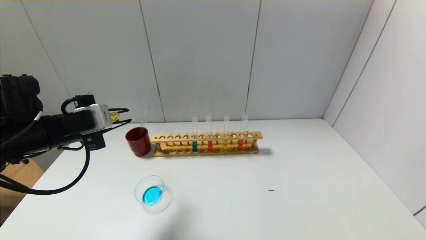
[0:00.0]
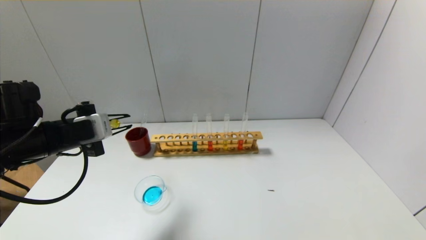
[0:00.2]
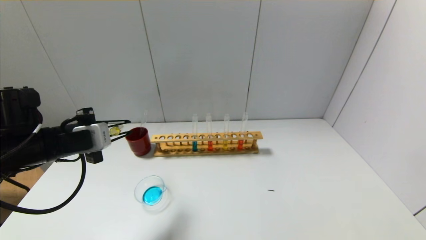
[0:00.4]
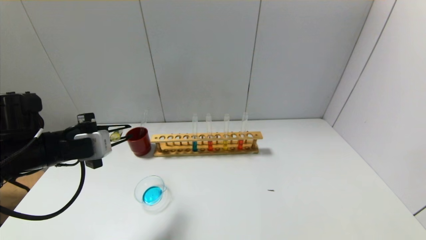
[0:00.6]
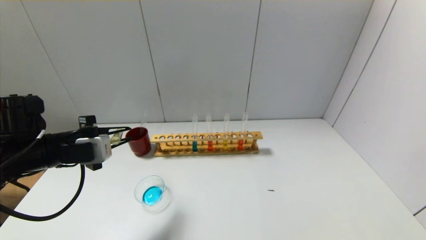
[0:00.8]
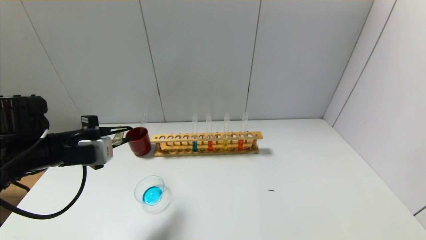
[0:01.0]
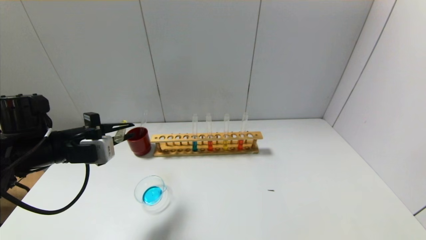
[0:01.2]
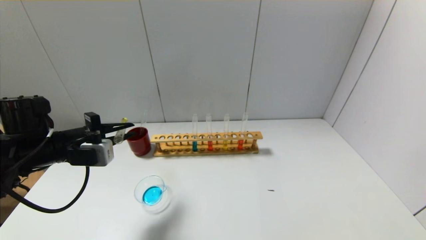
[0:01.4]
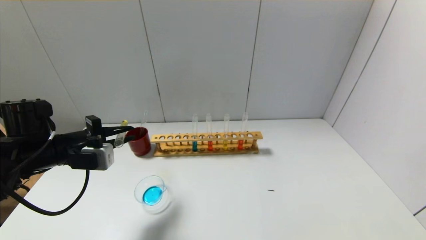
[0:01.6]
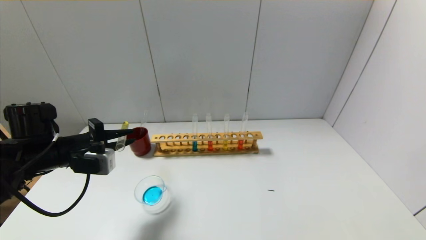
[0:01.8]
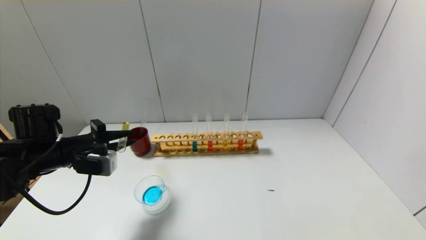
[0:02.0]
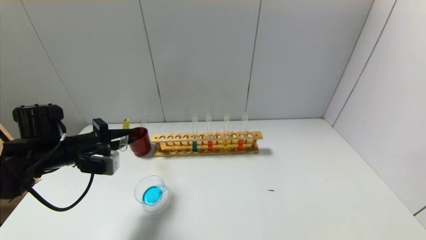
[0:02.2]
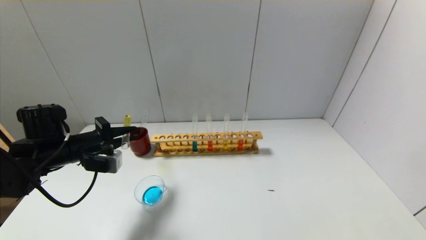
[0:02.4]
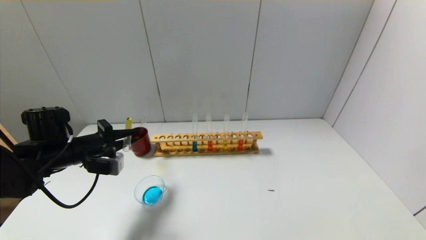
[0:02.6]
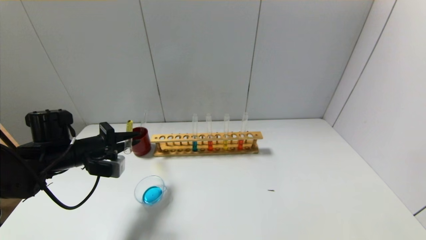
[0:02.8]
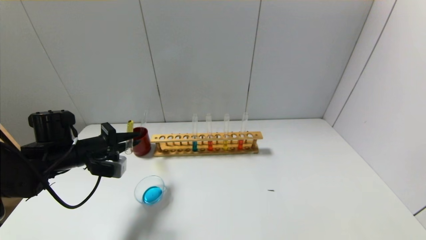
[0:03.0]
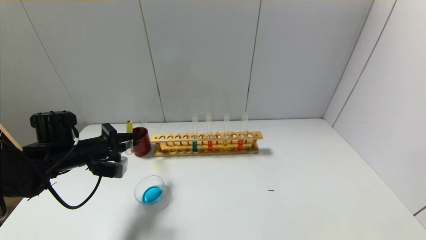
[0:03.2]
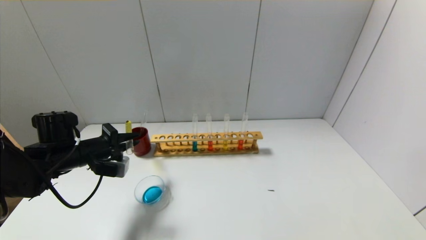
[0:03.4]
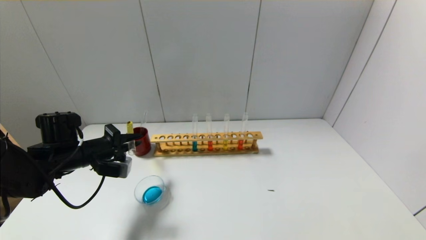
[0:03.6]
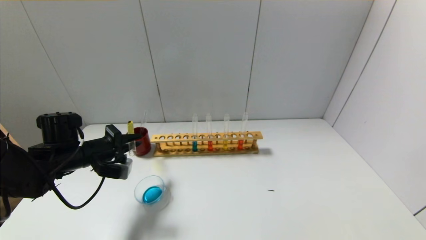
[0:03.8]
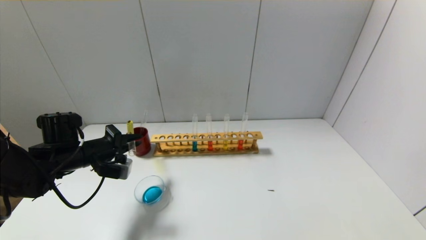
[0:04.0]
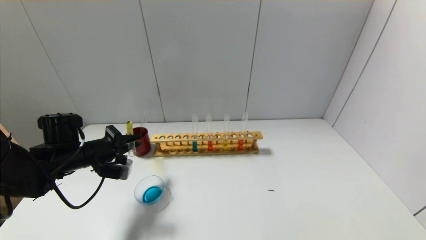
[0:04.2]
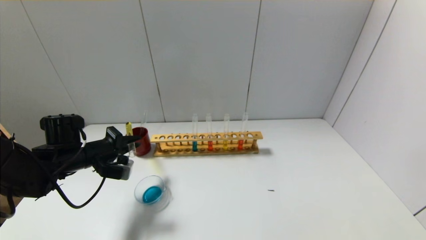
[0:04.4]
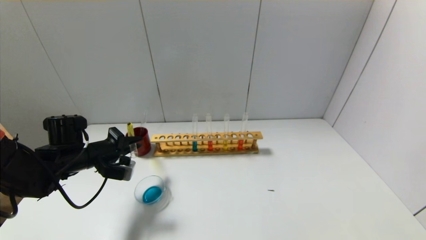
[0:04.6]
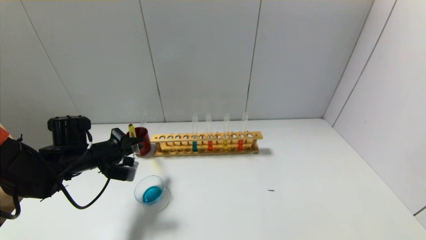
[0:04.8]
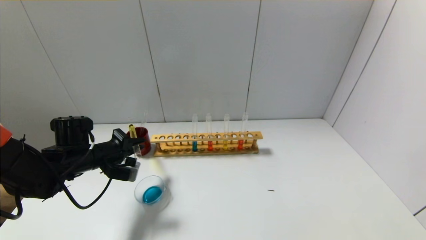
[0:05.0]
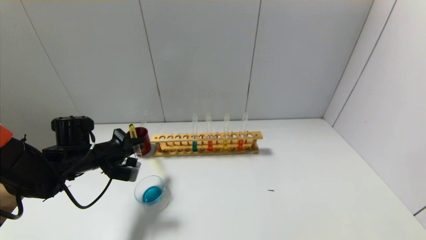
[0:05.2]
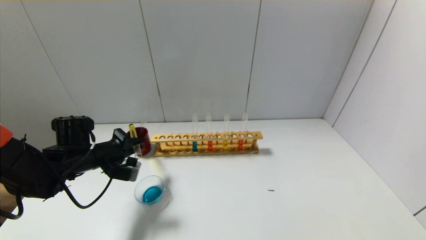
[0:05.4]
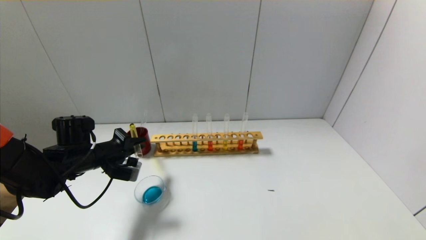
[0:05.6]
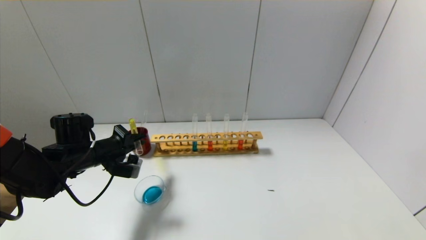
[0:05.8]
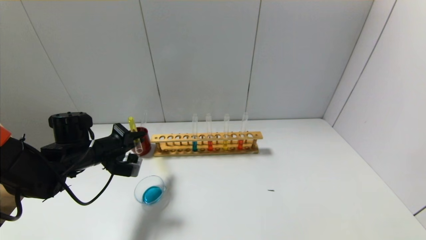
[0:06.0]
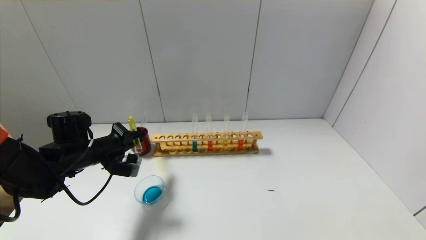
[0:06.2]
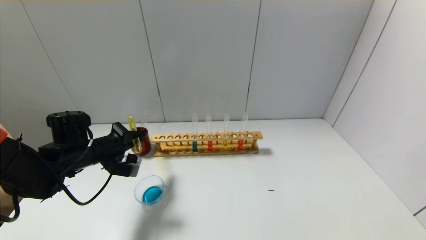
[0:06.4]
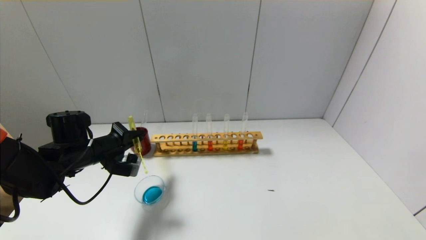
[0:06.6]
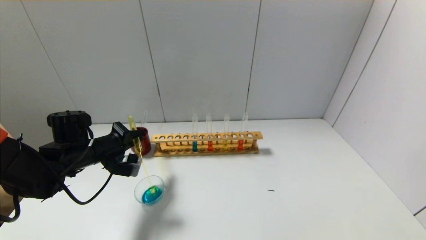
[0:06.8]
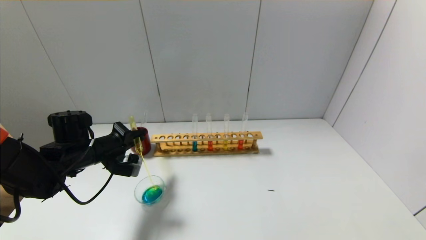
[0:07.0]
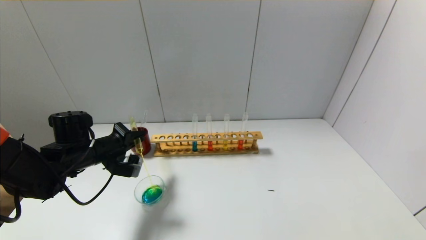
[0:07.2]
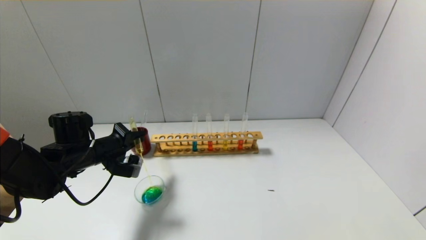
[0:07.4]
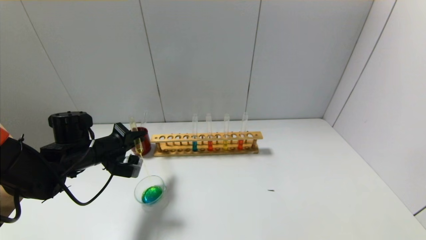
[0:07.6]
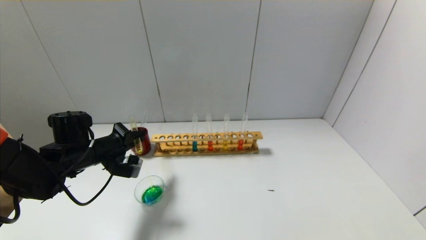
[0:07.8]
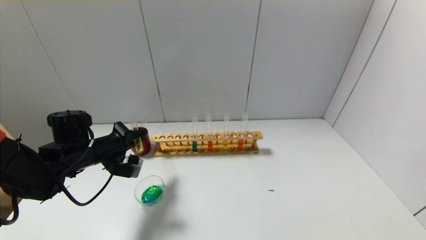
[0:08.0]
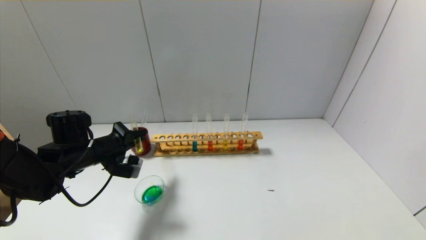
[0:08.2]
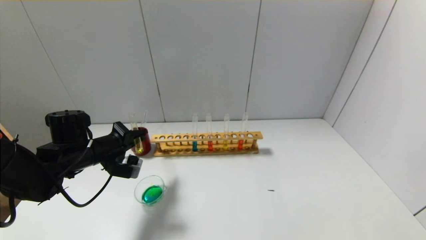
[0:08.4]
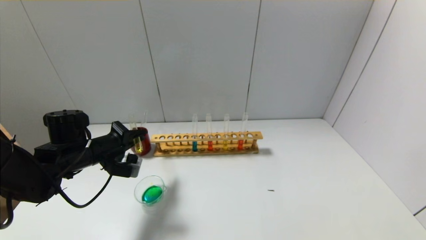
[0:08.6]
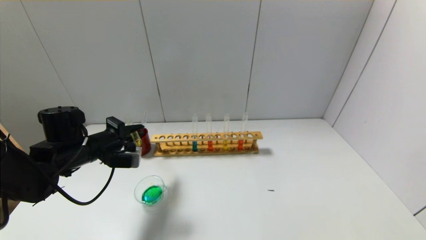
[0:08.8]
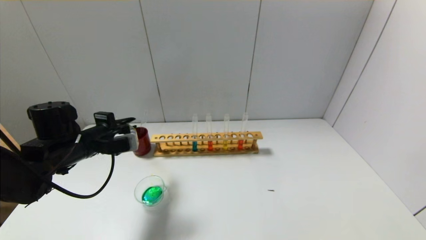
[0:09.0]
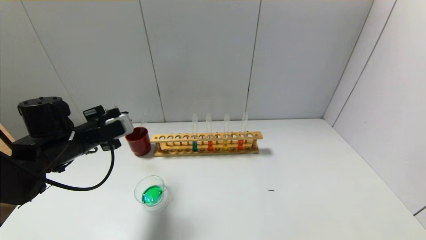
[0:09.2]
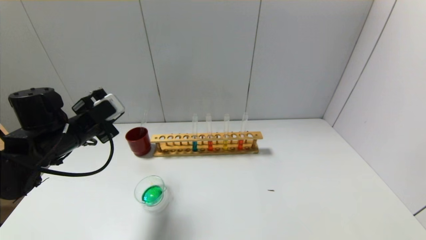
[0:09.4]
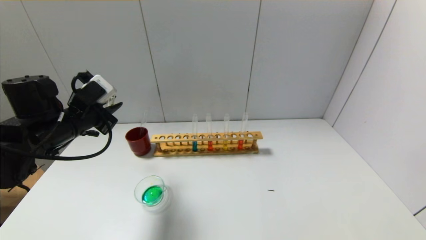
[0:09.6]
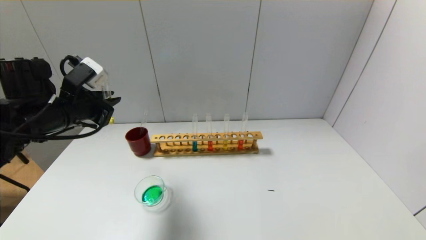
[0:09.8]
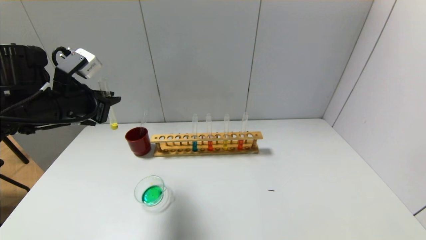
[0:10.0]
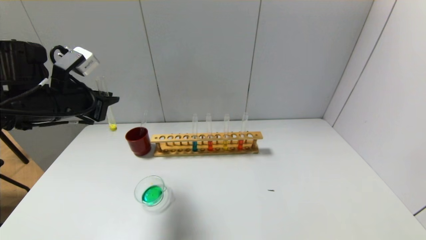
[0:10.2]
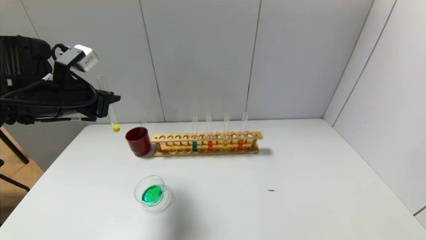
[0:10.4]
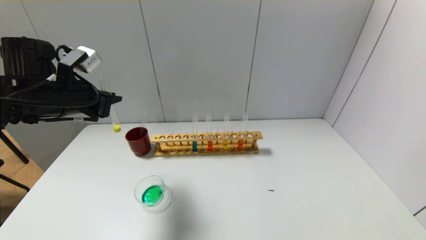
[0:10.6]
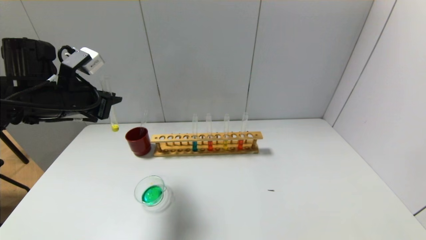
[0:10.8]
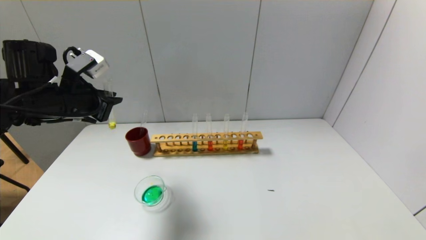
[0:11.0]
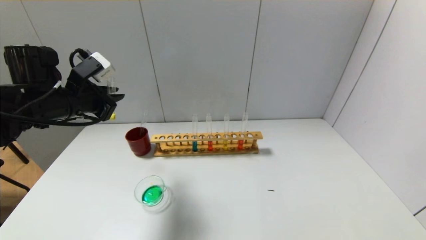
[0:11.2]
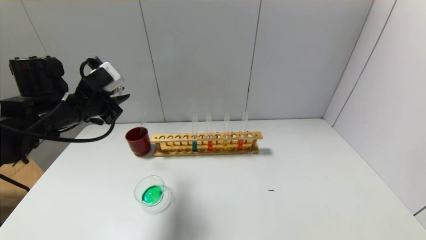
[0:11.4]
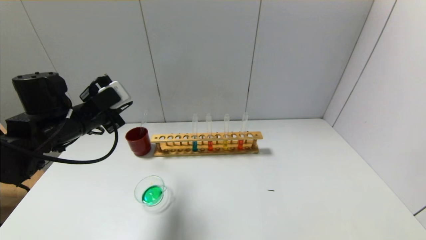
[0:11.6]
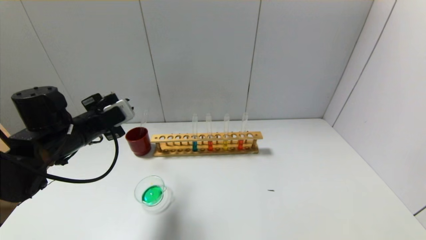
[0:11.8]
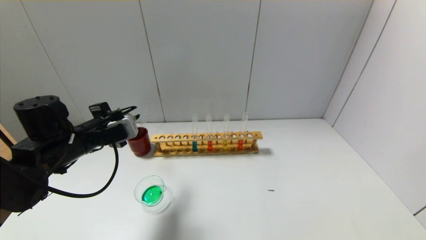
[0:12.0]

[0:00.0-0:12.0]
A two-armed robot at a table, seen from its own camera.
0:01.6 to 0:03.0: The left gripper changes place by roughly 5 cm.
0:03.0 to 0:06.0: The grippers make only small movements.
0:06.0 to 0:07.6: The two grippers keep their place.
0:09.0 to 0:10.4: The left gripper is displaced upward by roughly 10 cm.
0:10.4 to 0:12.0: The left gripper shifts some 10 cm downward.

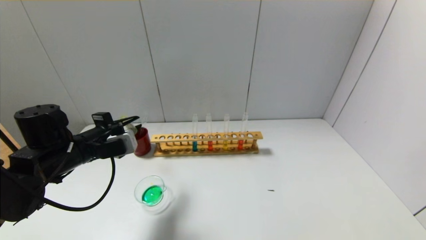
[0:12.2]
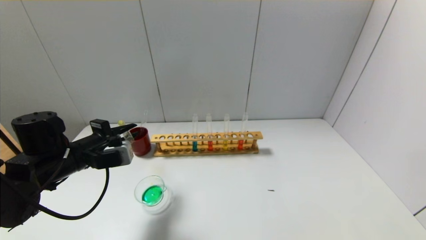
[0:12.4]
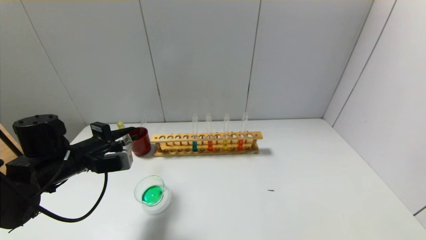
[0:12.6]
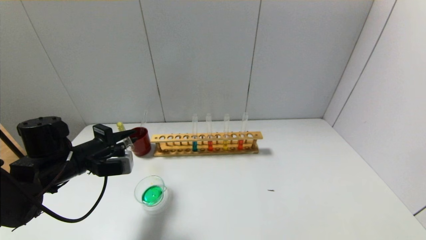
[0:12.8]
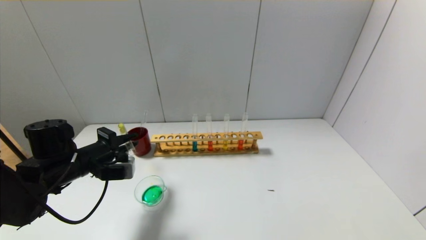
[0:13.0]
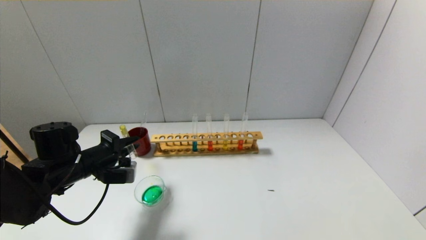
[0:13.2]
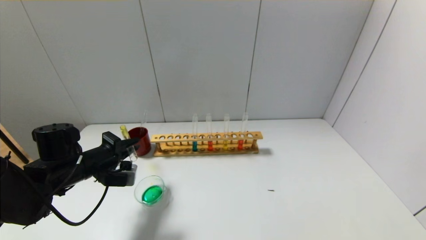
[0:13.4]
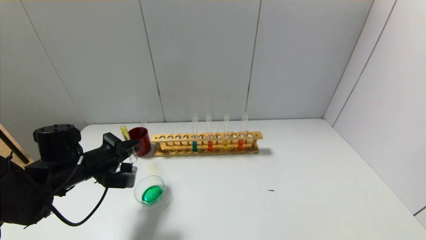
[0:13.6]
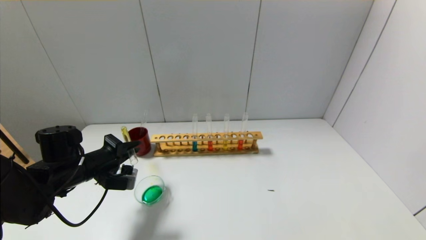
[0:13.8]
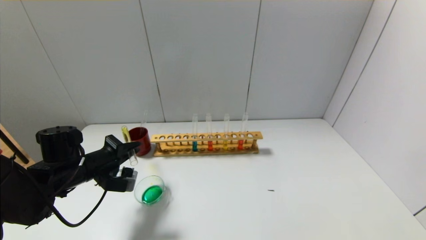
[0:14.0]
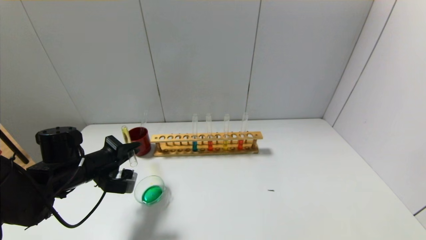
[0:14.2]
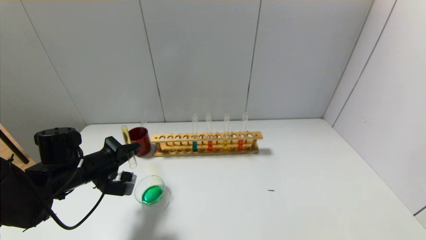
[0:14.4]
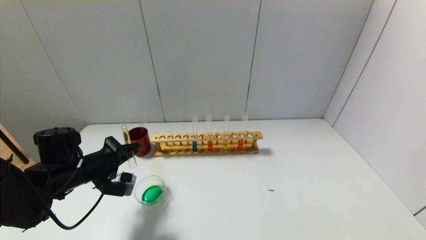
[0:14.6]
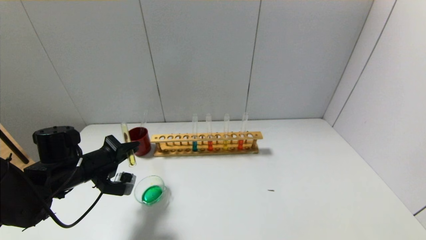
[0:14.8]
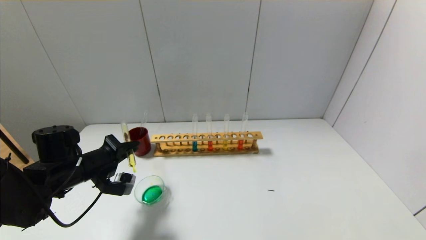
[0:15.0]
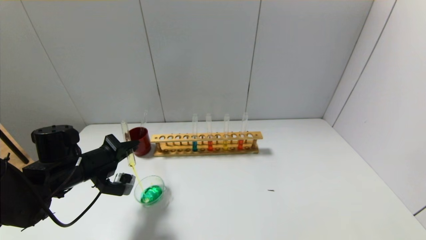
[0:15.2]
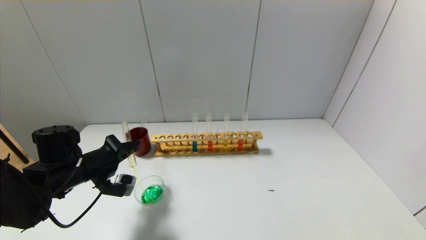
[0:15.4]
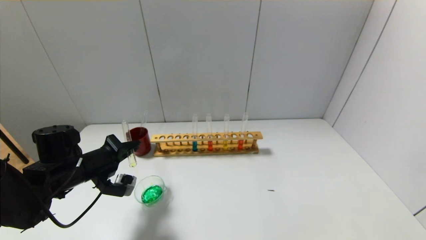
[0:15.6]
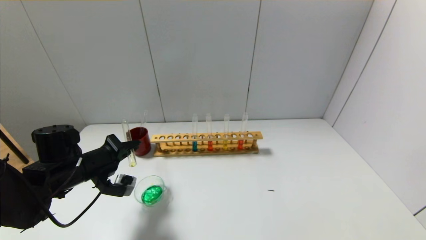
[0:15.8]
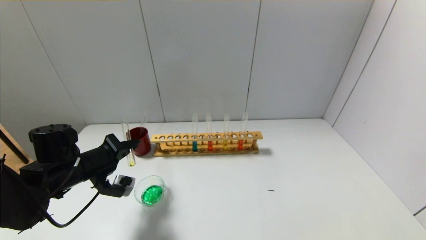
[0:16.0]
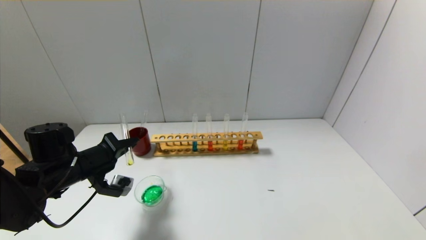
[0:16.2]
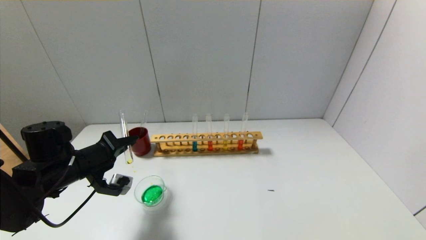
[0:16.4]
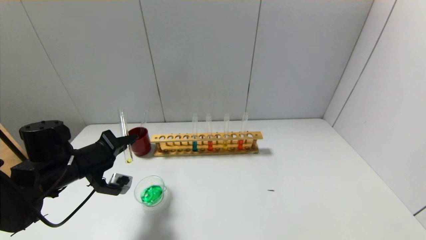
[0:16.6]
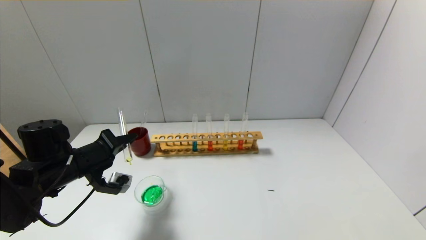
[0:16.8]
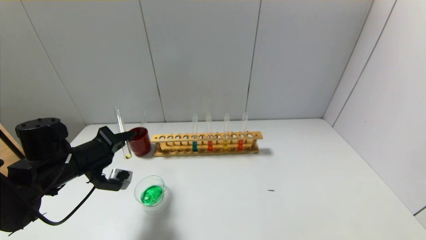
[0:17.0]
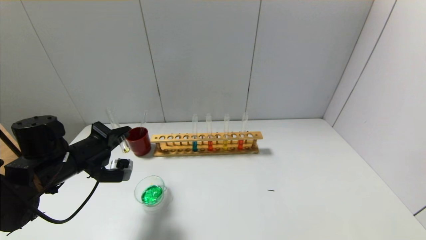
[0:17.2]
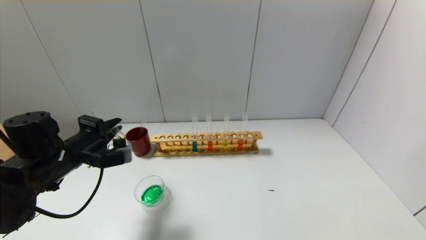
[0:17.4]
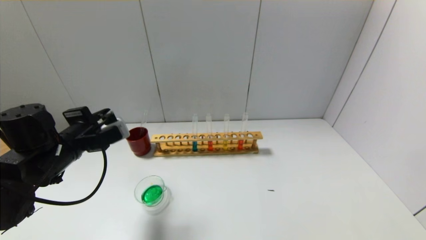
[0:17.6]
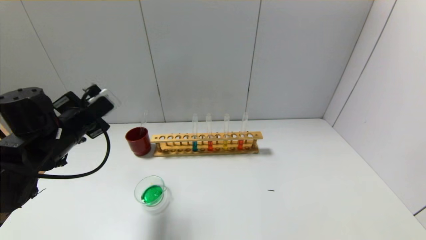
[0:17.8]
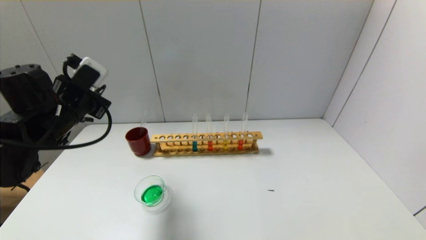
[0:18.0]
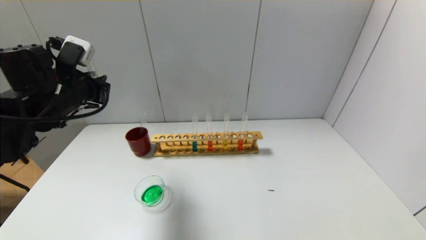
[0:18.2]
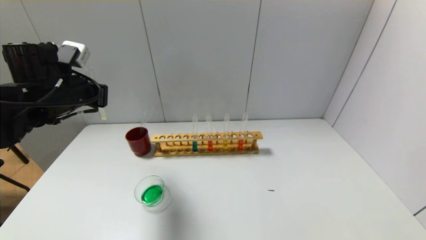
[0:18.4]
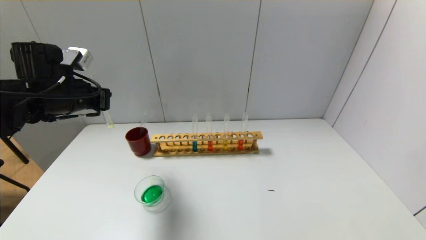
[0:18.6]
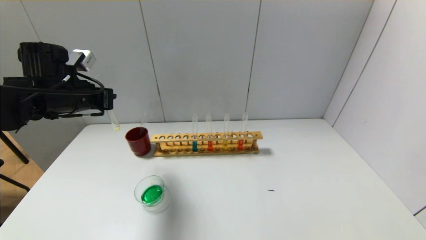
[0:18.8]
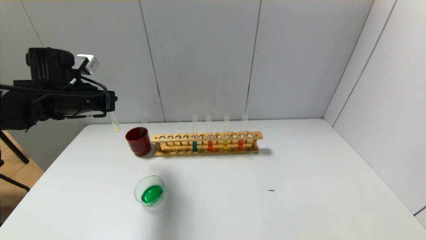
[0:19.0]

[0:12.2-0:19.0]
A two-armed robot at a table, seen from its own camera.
Step, 0:12.2 to 0:17.4: Pour the yellow reagent into the graduated cylinder with the left gripper.
0:12.2 to 0:13.6: The left gripper shifts about 5 cm downward.
0:13.6 to 0:15.0: The grippers move only a little.
0:15.0 to 0:16.2: There are only small adjustments of the grippers.
0:16.2 to 0:17.6: The left gripper heads upward, covering approximately 5 cm.
0:17.6 to 0:19.0: The left gripper heads forward and upward, covering some 10 cm.
